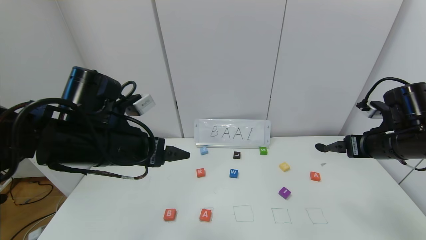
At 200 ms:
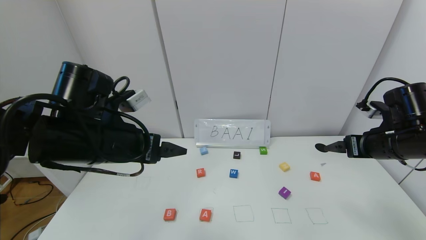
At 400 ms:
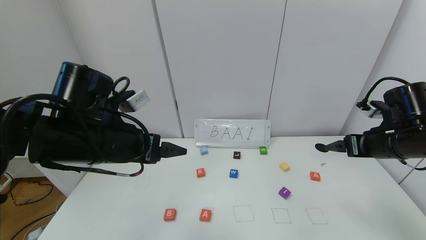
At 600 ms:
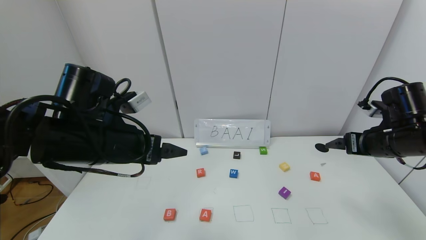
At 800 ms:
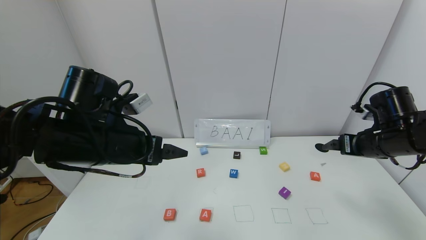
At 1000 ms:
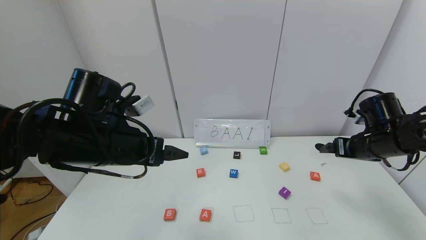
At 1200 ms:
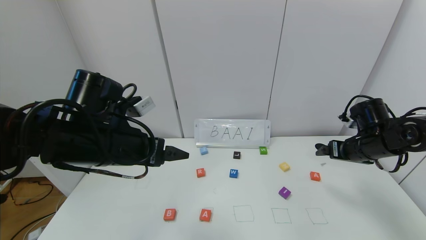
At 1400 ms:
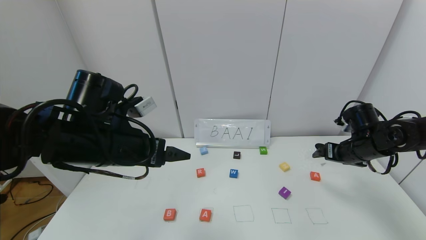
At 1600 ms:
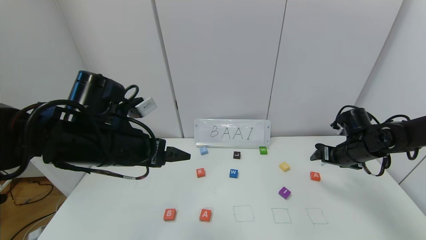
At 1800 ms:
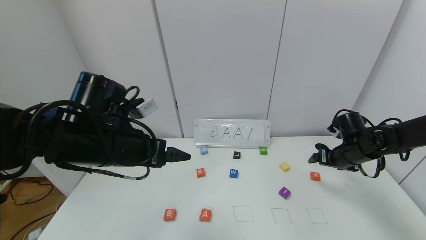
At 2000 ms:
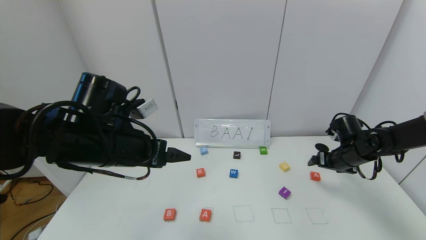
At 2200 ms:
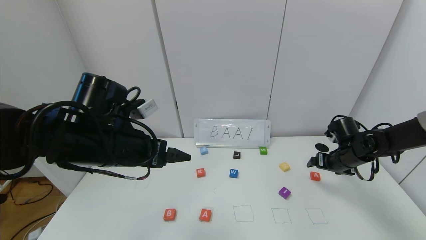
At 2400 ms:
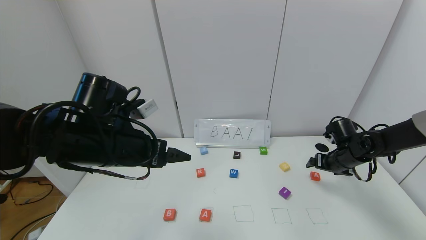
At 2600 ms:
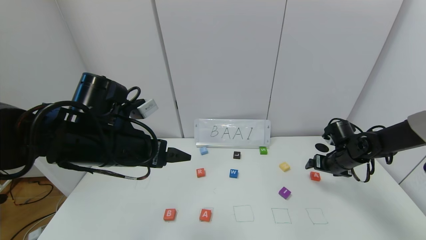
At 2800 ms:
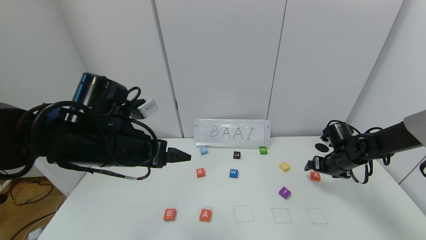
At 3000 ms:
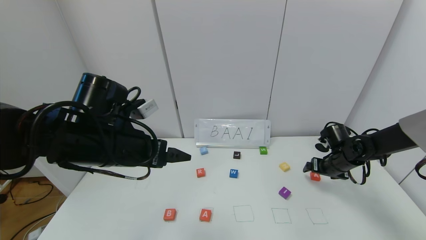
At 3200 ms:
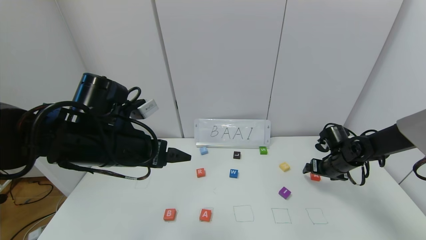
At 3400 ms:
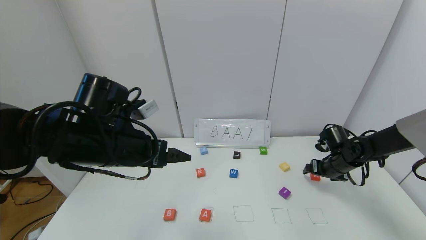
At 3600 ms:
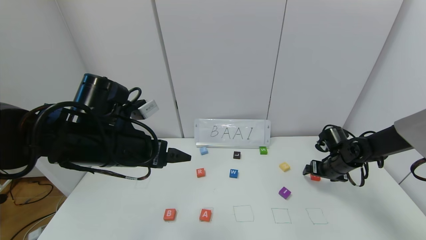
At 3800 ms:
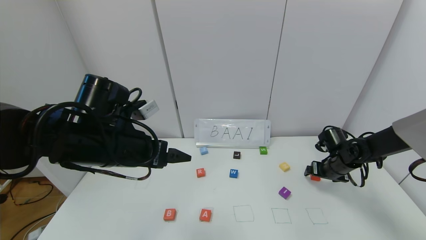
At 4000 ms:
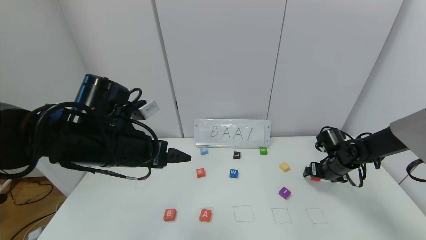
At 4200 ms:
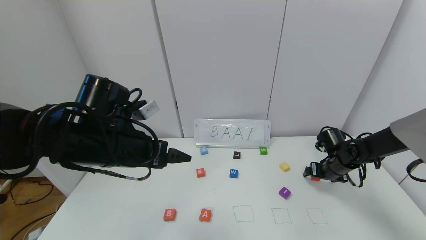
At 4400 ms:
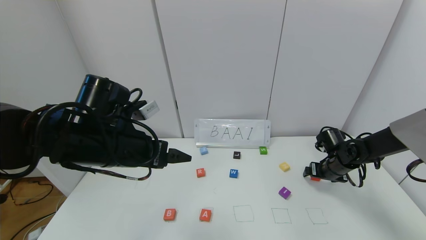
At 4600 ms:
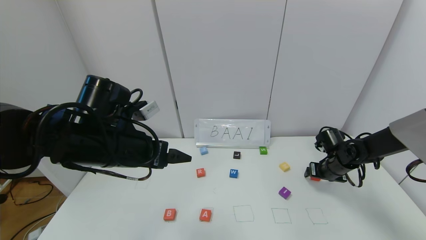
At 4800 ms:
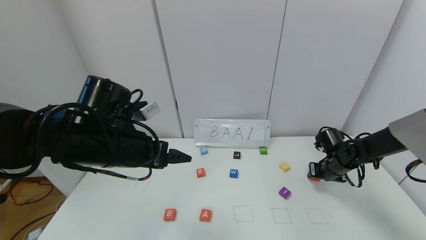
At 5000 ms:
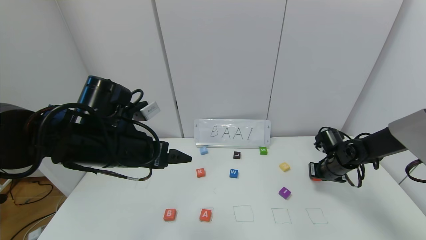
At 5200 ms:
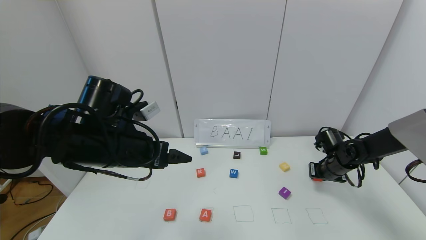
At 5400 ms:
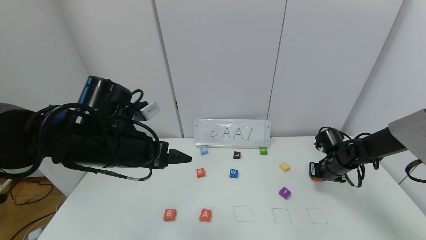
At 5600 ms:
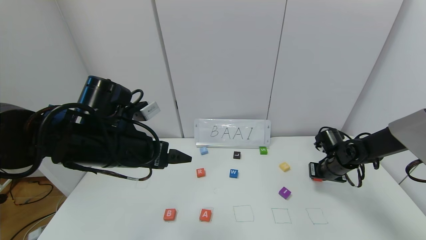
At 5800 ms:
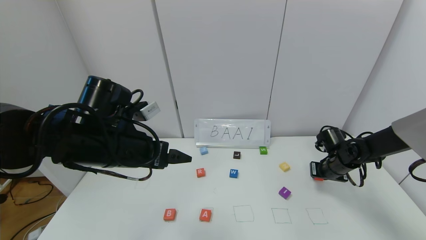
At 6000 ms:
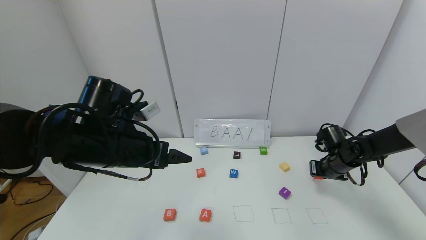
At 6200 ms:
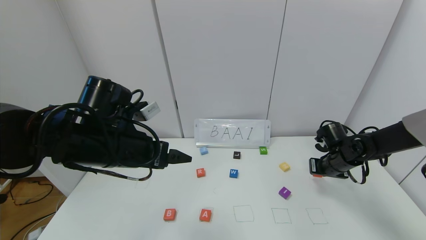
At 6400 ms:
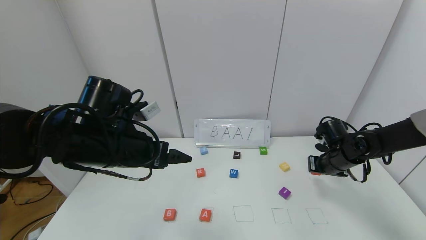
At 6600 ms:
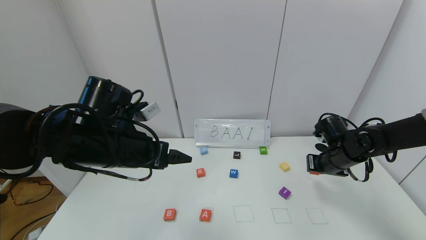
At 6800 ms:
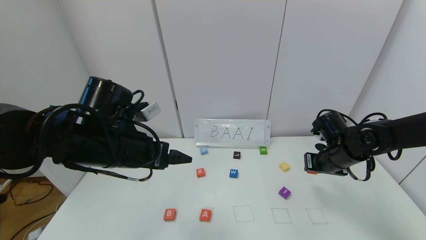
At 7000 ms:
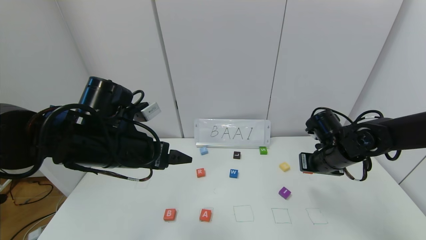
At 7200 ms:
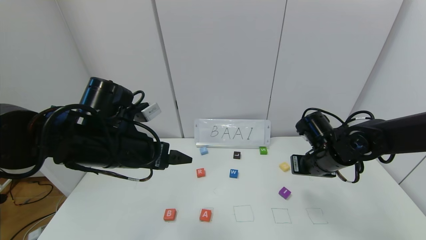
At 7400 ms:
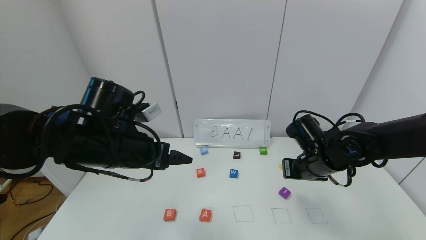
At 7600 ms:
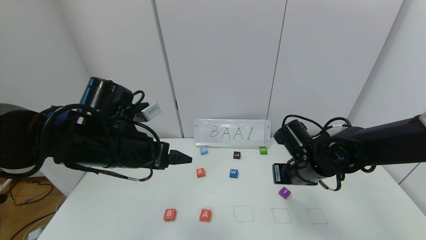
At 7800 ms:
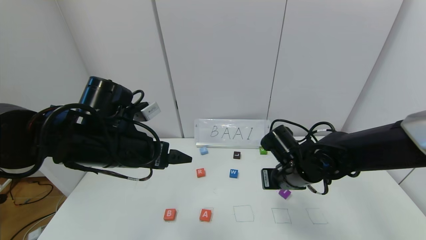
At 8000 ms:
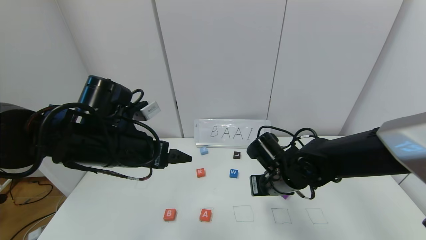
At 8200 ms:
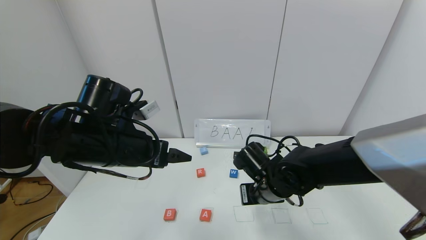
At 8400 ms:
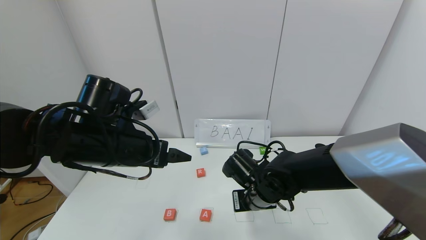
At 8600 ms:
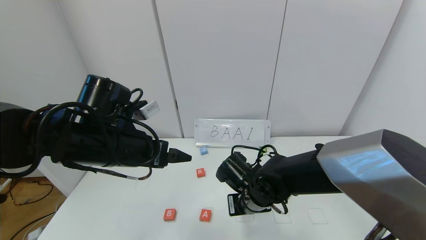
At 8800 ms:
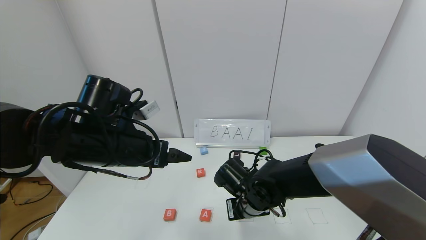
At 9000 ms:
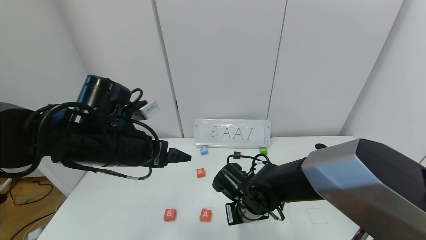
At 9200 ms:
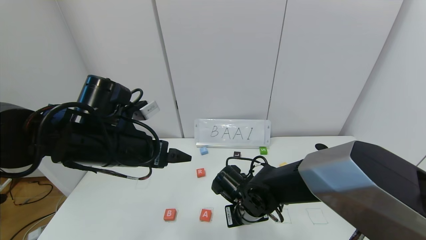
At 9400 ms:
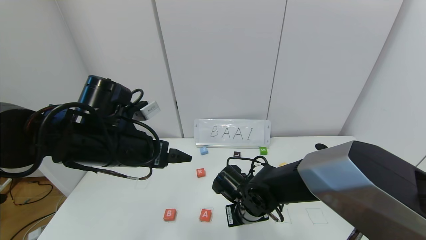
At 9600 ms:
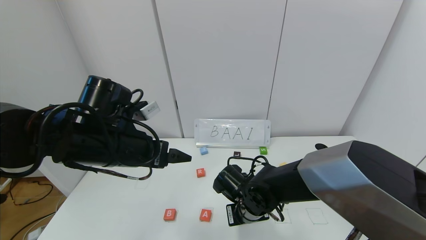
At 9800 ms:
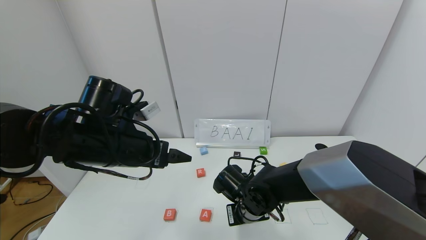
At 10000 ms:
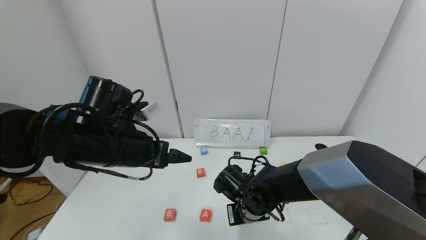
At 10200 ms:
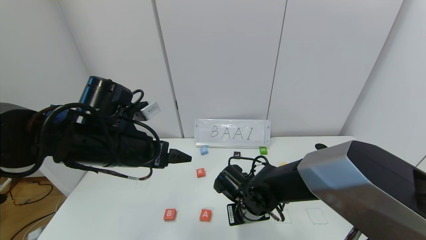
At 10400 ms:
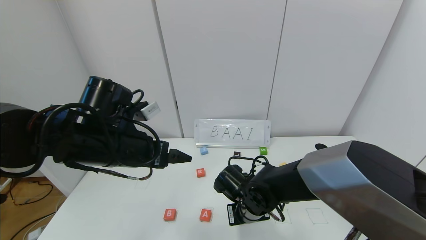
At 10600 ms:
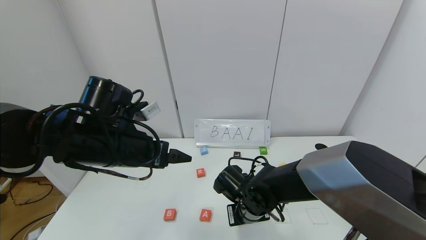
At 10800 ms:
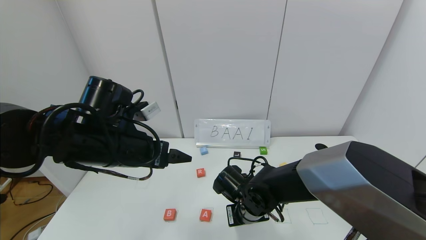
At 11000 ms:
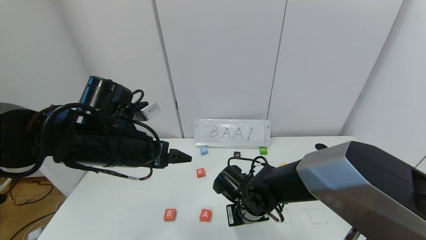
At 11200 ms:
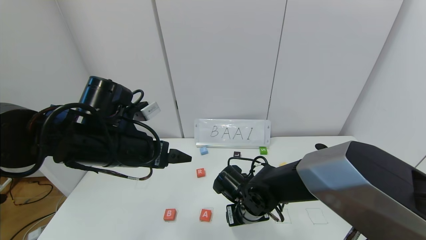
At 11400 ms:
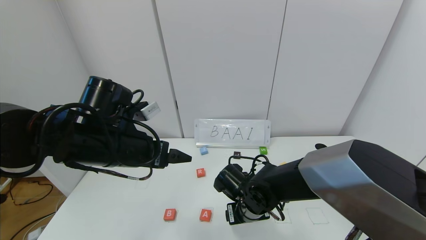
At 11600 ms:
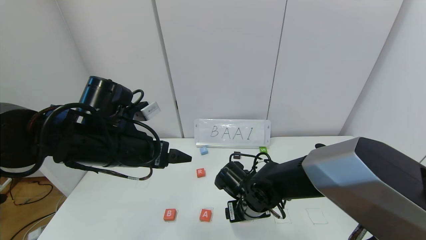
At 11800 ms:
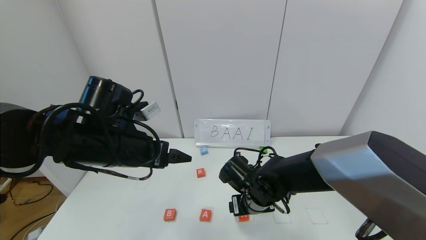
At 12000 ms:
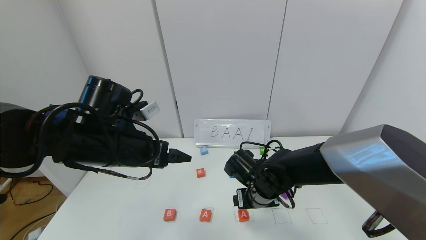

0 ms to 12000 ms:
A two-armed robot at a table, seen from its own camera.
Task of the whole recording: use the gripper to find blocks with the letters b, a, a, and i on the table and arrange them into BAAI, then find r and N and turn the arranged baai into brian.
0 ms to 1600 ms: The right gripper travels downward and forward by some 10 cm.
1600 ms to 3000 ms: The right gripper shifts about 5 cm downward.
3000 ms to 4400 ms: The grippers move only a little.
4400 ms to 6000 ms: The right gripper closes up.
6000 ms to 7600 ms: The right gripper heads to the left, backward and upward, covering about 20 cm.
7600 ms to 9000 ms: The right gripper goes approximately 15 cm to the left and downward.
9000 ms to 10400 ms: Neither gripper changes place.
10400 ms to 12000 ms: The right gripper opens up.

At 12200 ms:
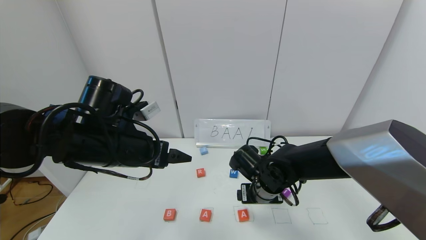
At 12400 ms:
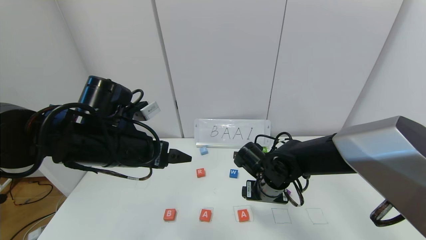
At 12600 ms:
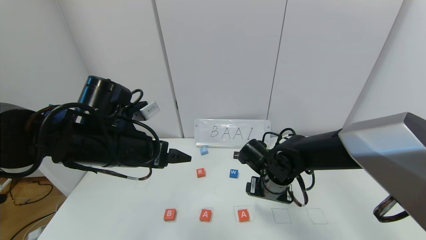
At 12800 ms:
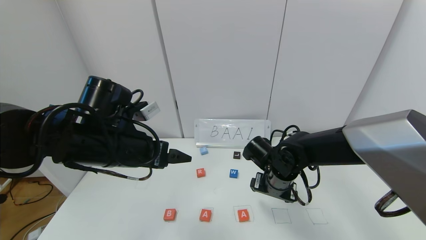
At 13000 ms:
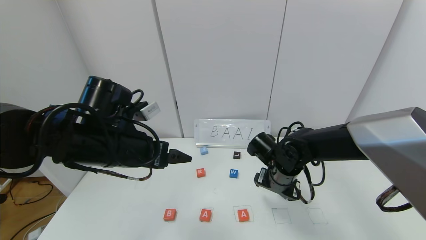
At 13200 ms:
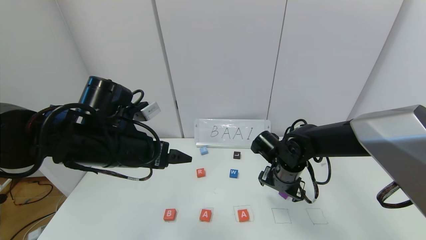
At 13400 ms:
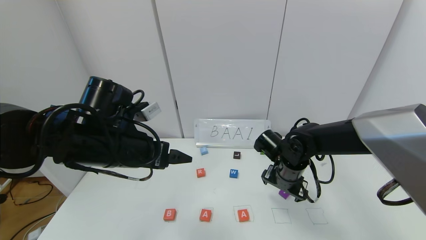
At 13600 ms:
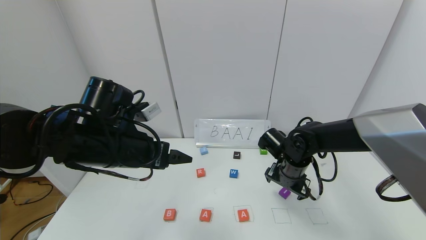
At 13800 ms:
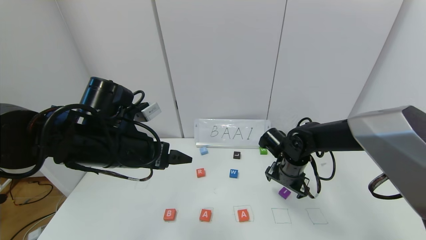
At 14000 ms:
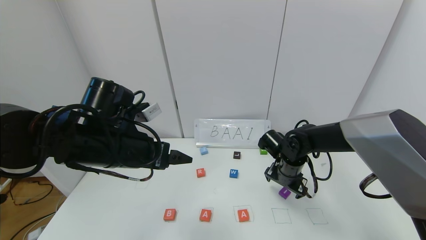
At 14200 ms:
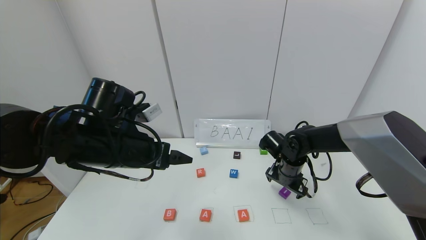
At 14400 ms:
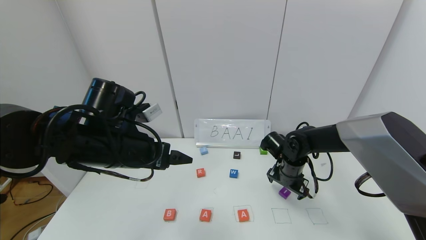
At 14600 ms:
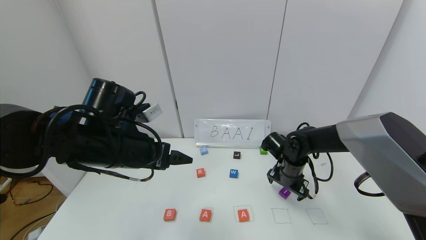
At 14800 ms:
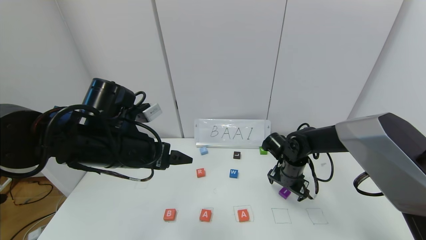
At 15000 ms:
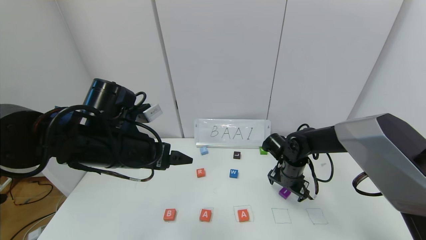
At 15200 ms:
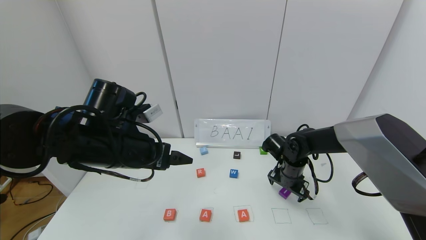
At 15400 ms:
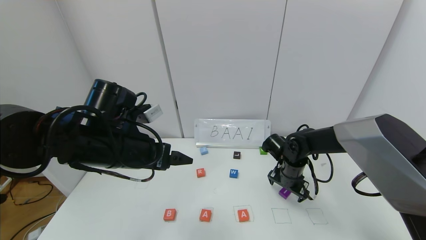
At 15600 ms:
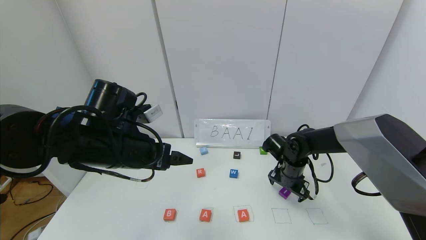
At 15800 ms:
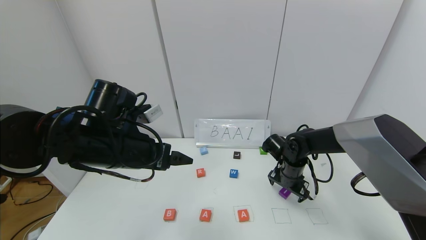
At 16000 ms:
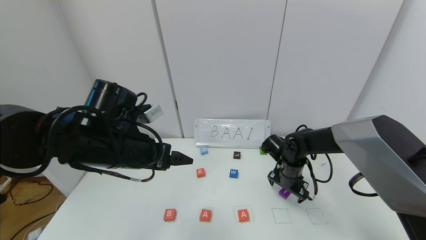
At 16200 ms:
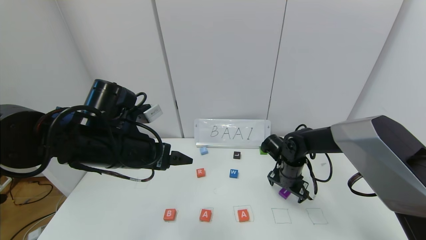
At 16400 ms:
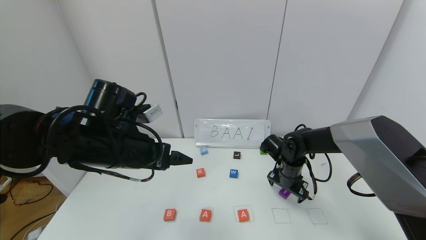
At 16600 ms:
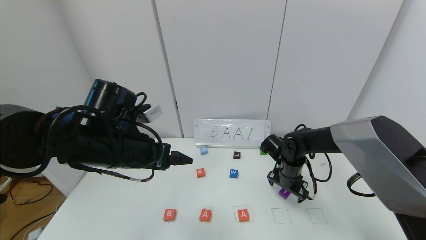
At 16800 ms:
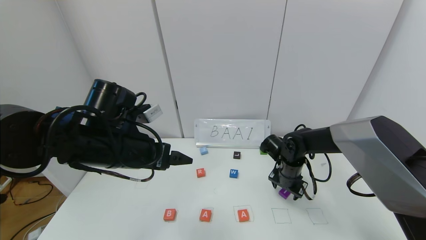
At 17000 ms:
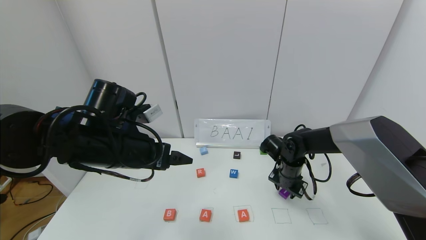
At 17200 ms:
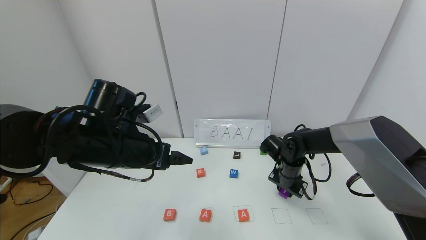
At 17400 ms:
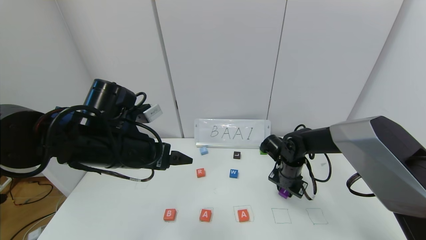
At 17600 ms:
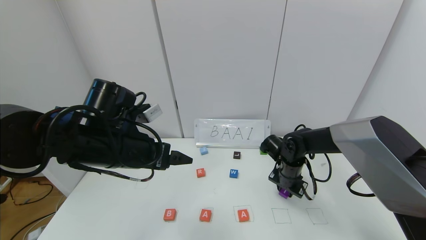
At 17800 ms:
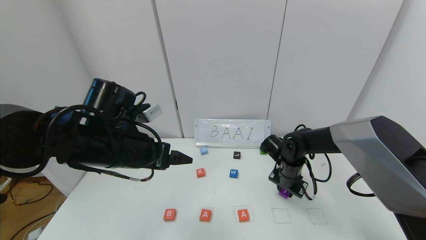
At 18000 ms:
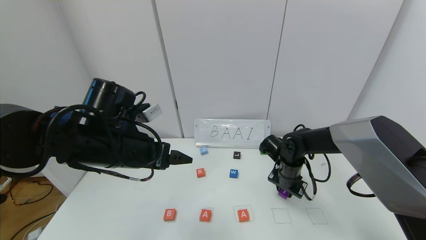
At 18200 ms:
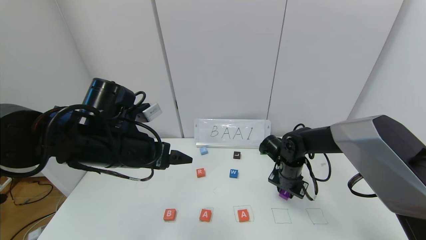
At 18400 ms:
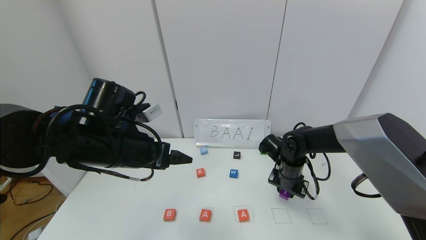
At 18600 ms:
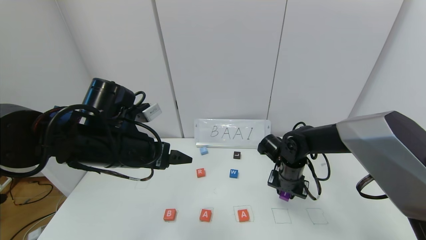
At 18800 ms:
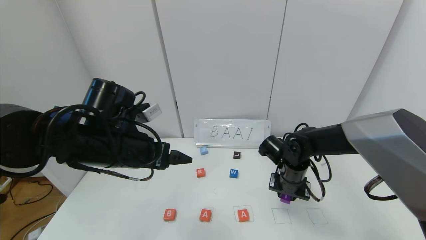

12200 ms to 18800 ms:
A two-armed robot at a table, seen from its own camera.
Task of the whole recording: use the gripper to find blocks with the letters b, a, a, and i on the table and arrange them into BAAI, then find r and N and turn the arranged baai into brian.
12200 ms to 13800 ms: The right gripper shifts about 10 cm to the right and forward.
13800 ms to 15400 ms: There are only small adjustments of the grippers.
15400 ms to 17200 ms: The right gripper closes.
17200 ms to 18800 ms: The grippers stay close to where they were, moving slightly.
